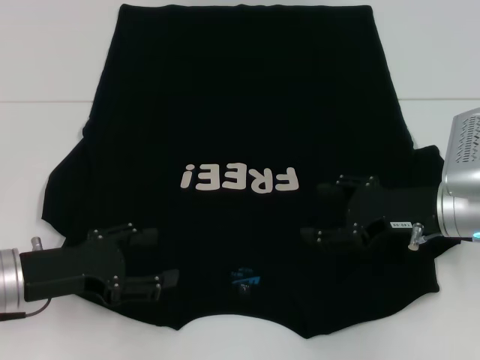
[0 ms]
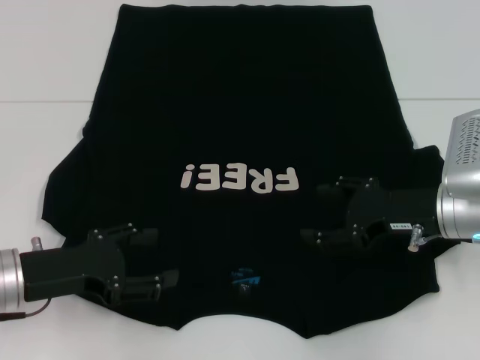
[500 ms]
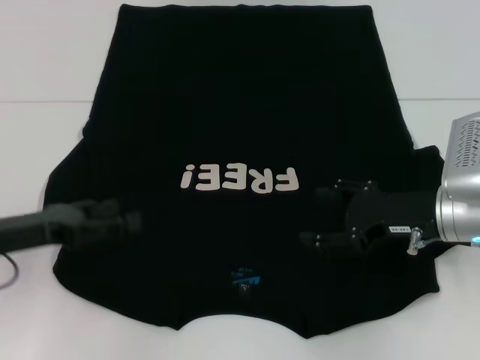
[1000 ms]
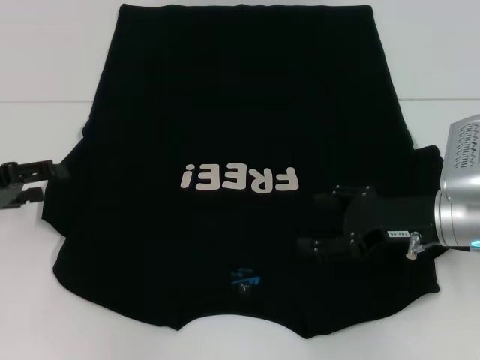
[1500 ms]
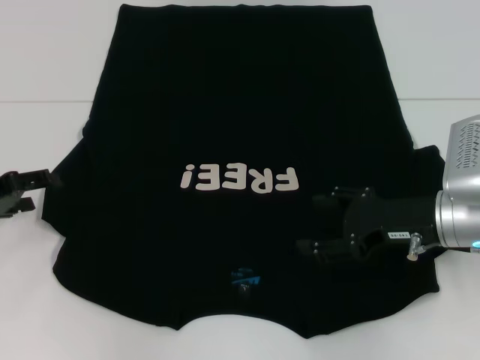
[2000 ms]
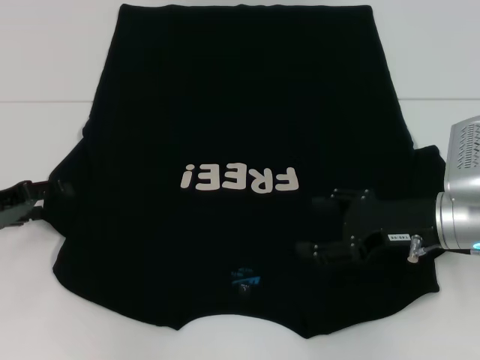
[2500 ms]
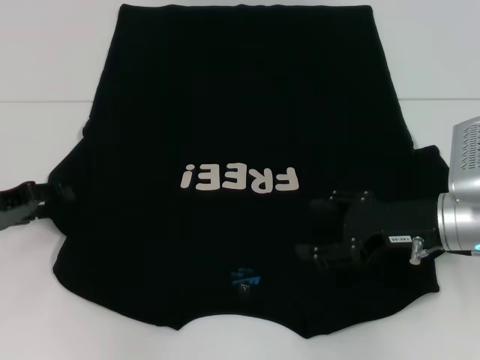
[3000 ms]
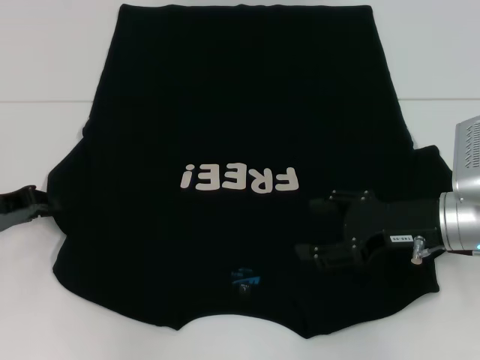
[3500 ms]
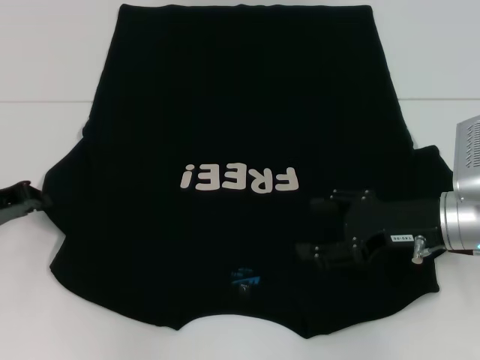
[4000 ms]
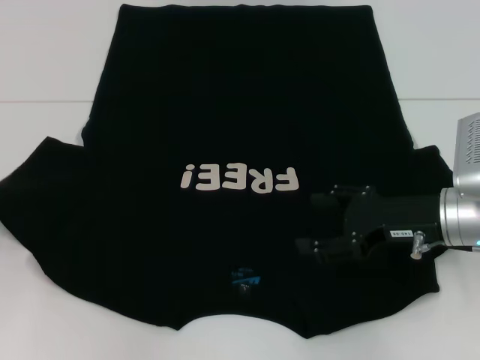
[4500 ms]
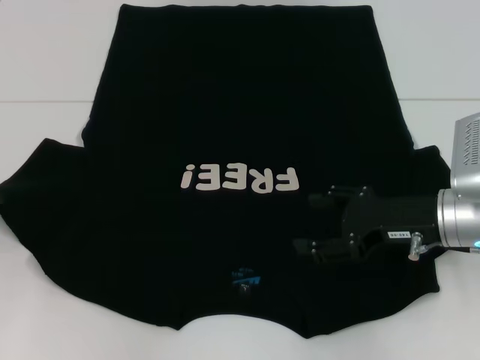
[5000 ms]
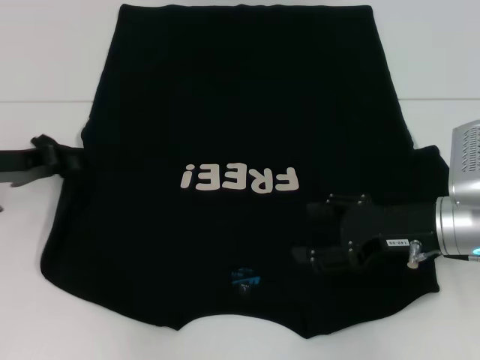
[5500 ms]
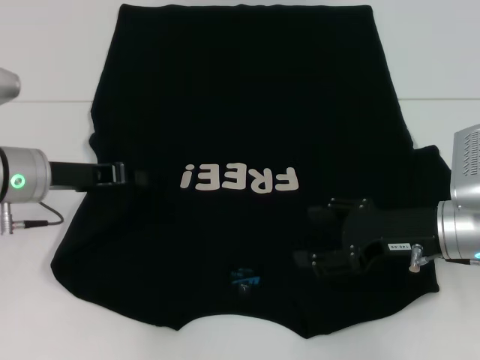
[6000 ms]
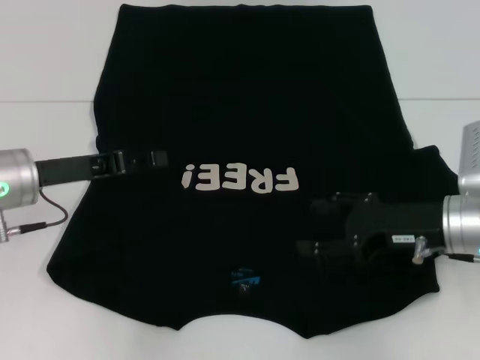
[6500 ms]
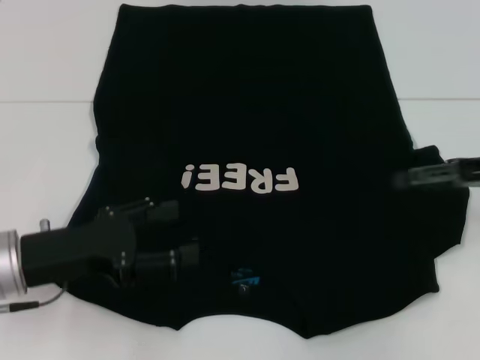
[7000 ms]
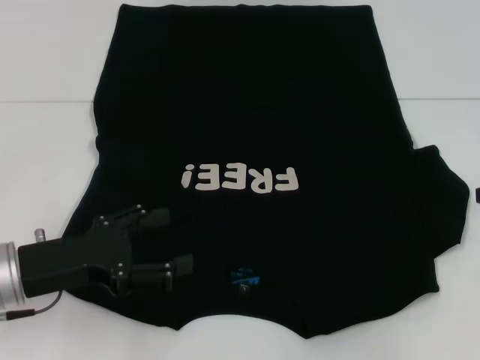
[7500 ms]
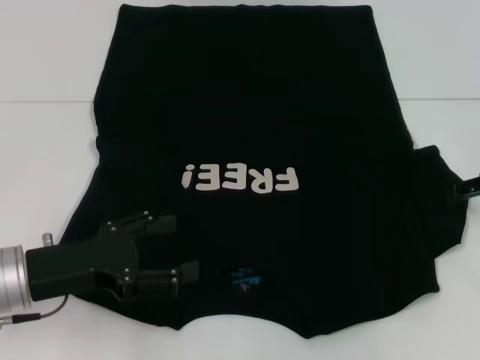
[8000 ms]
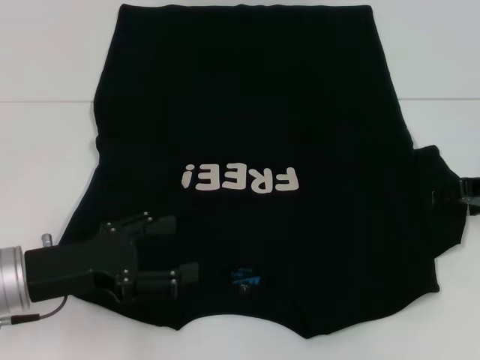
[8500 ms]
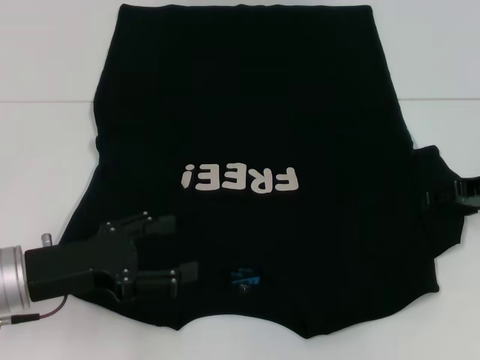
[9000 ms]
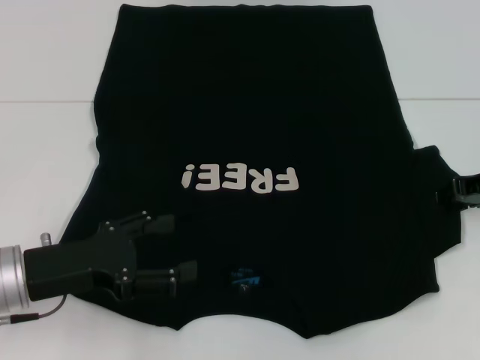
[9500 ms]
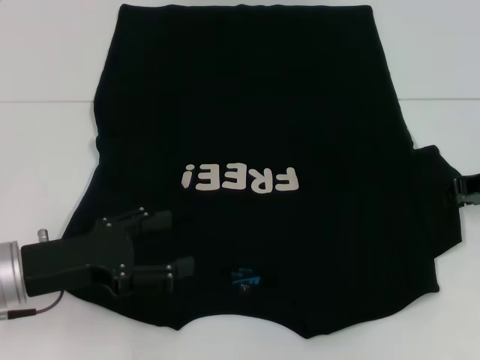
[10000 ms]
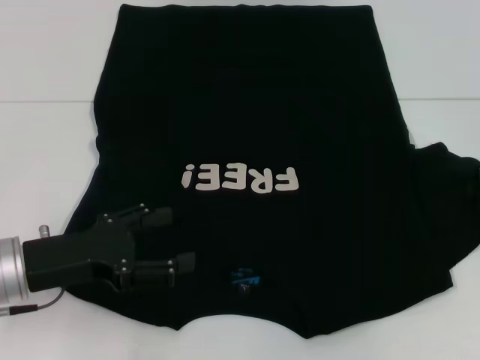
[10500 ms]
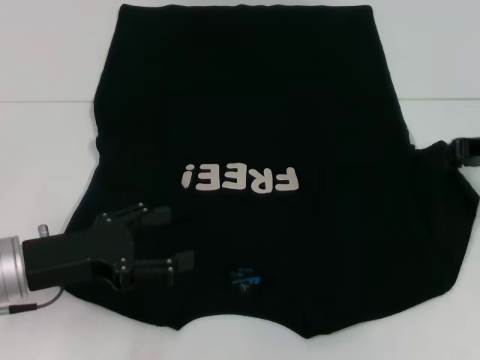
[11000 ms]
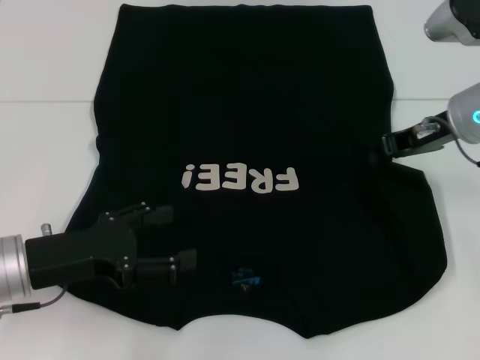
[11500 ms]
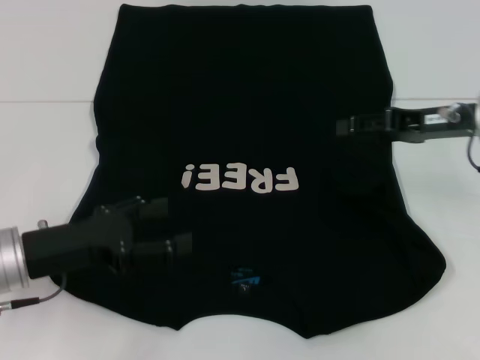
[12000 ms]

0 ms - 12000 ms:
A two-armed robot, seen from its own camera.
Step, 0 ms - 6000 ms: Fold the bottom left sleeve with your left hand.
Step, 6500 ms - 11500 ms: Fold the bottom right sleeve with your right hand.
0 ms - 2000 ms: The left gripper moves to the left and forward, roughly 10 cm.
2000 ms - 4000 ms: The left gripper closes up.
4000 ms - 6000 ms: The left gripper shifts roughly 10 cm to the right.
6000 ms - 8000 ms: The right gripper heads to the right, forward and upward, covering about 15 cm. The left gripper moves backward, about 10 cm, and opens.
10000 ms - 12000 ms: The right gripper moves to the left, approximately 5 cm.

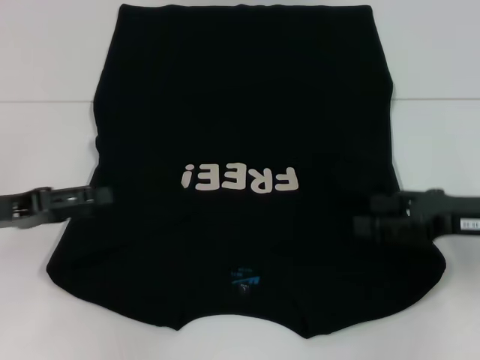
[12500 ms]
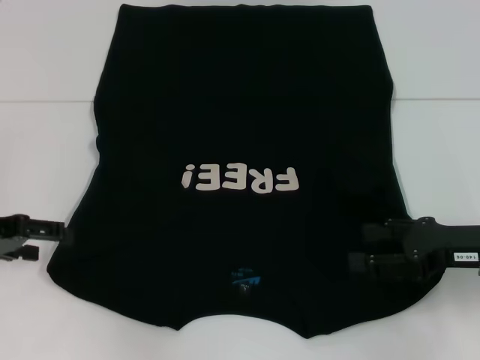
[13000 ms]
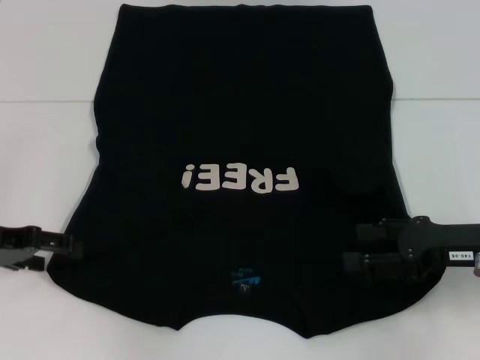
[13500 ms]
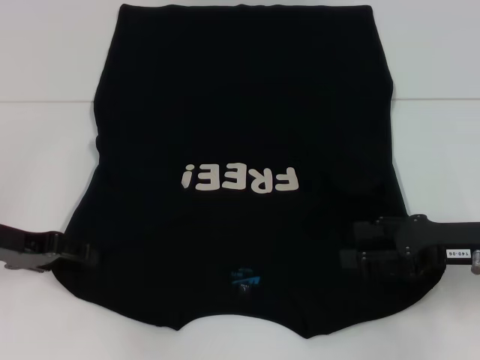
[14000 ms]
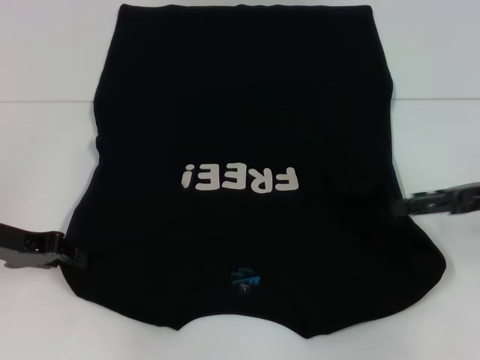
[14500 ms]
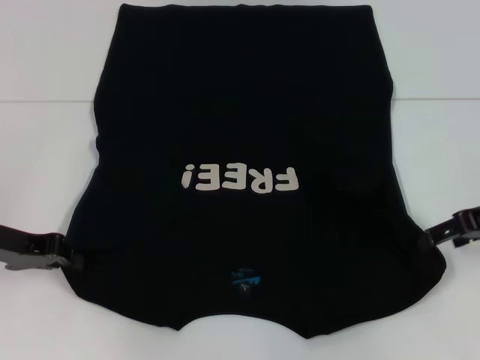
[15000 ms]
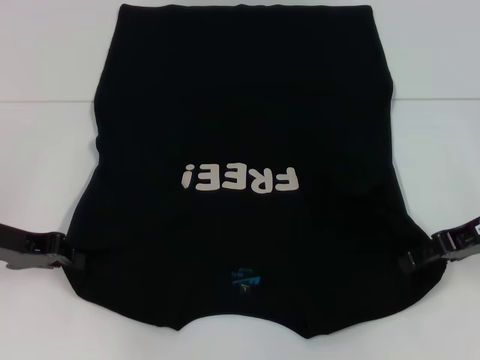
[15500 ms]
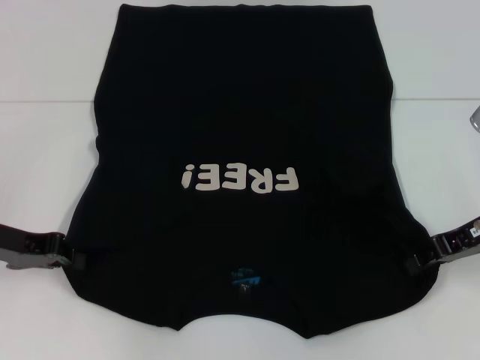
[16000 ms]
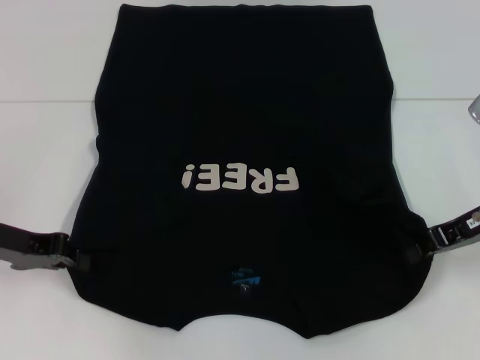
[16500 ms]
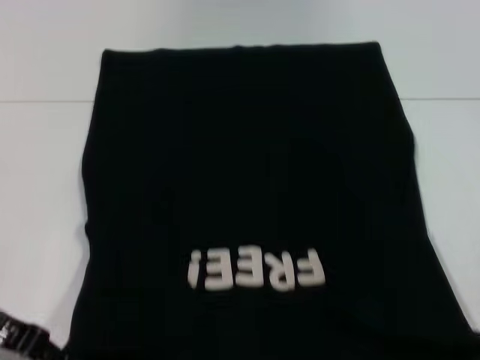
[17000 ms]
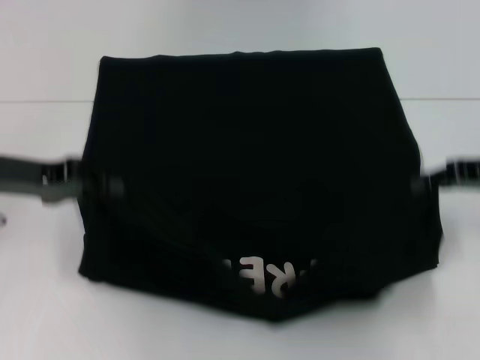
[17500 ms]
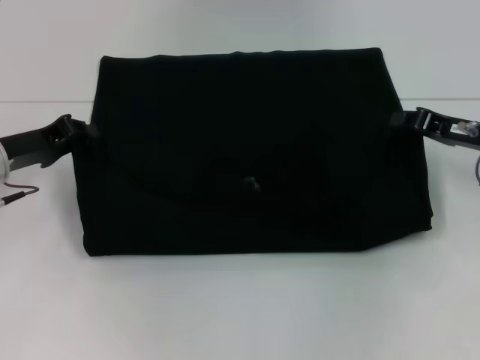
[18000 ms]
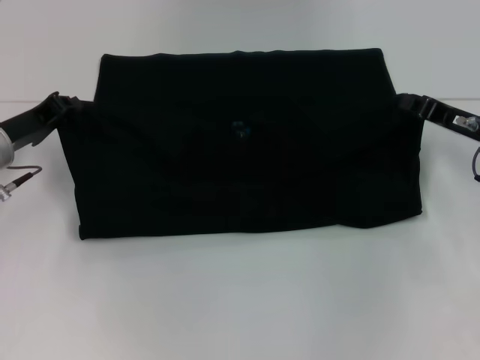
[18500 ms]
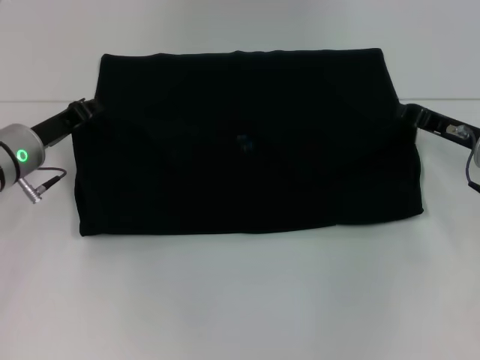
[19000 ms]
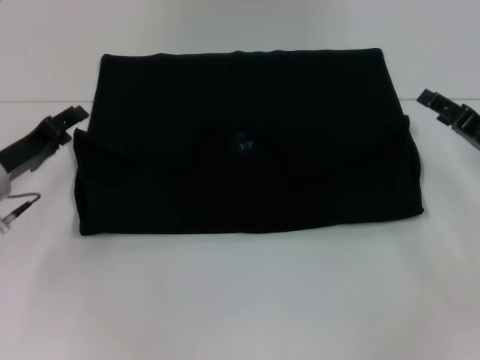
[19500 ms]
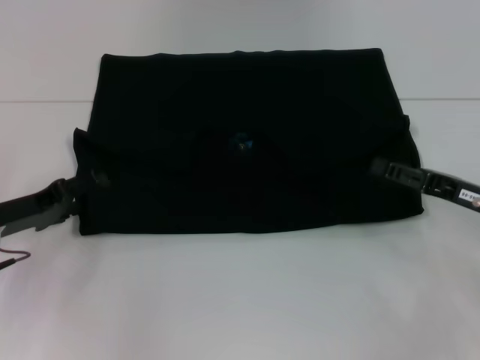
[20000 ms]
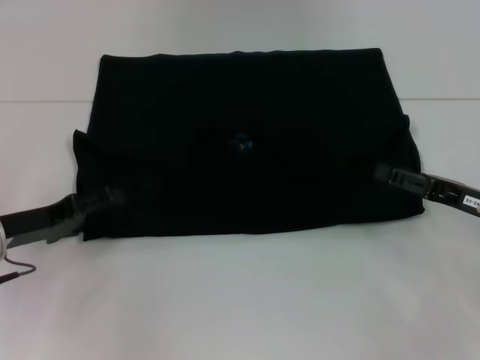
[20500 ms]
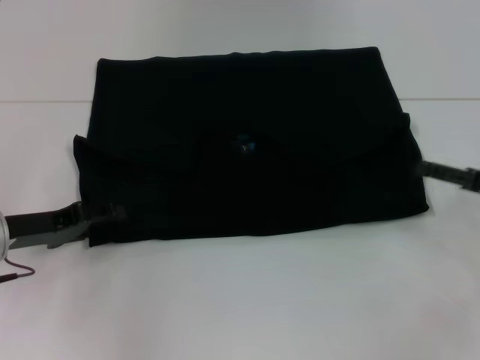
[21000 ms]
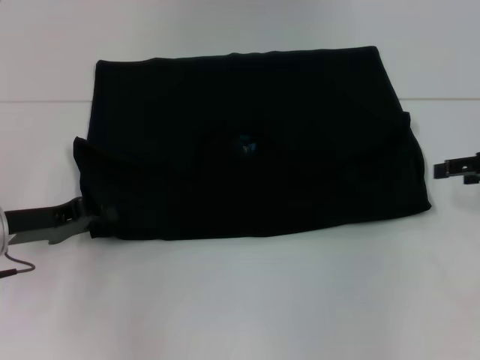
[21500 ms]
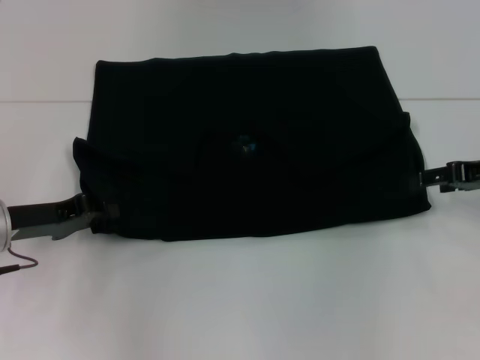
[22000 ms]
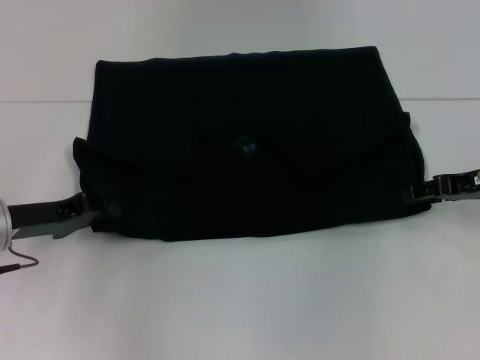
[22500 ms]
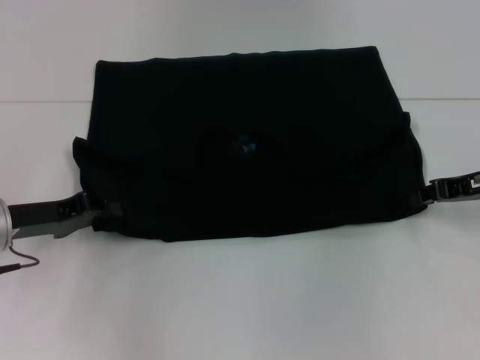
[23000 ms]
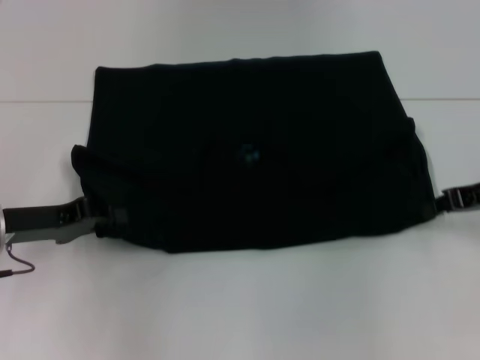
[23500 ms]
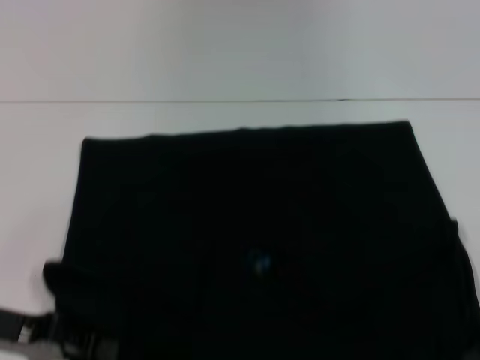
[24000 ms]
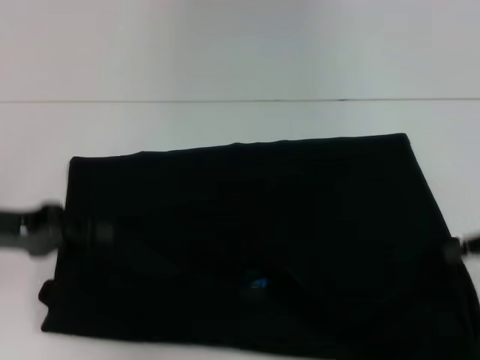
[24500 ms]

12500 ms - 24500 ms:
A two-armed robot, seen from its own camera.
Step, 12500 ms - 15000 ms: Grab the bottom left corner with your left hand.
Step, 15500 ms - 16500 ms: Grab the bottom right corner with your right hand.
Step, 17000 ms - 19000 ms: Fold the clothes with your left hand.
Step, 17000 ms - 19000 ms: Fold the clothes with your right hand.
Step, 19500 ms - 23500 ms: Pull the clothes with your left hand.
Step, 19500 ms - 23500 ms: Pull the clothes with your right hand.
12500 ms - 14500 ms: The left gripper closes up.
14500 ms - 16500 ms: The right gripper closes up.
16500 ms - 18500 ms: The left gripper shifts some 5 cm forward.
18500 ms - 20500 ms: The grippers both shift backward by approximately 5 cm. The left gripper opens its fingers. Meanwhile the right gripper opens.
20500 ms - 22500 ms: The left gripper closes. Meanwhile the right gripper travels forward by roughly 5 cm.
22500 ms - 24500 ms: The left gripper is displaced upward by some 5 cm, and reaches some 10 cm backward, then returns. The right gripper goes roughly 5 cm backward, and closes its fingers.

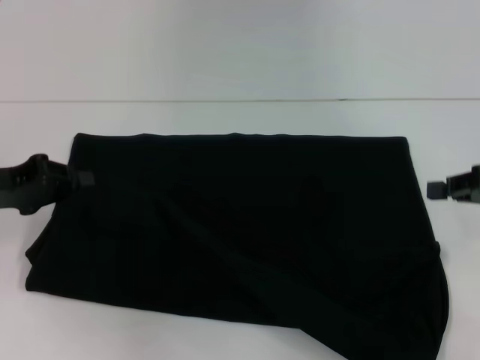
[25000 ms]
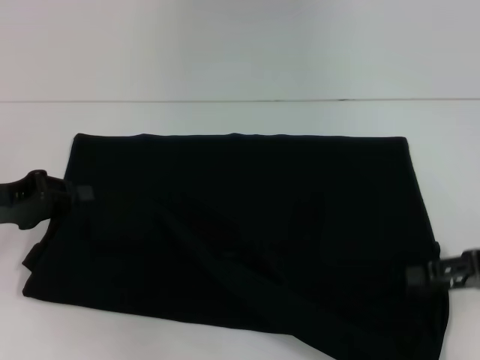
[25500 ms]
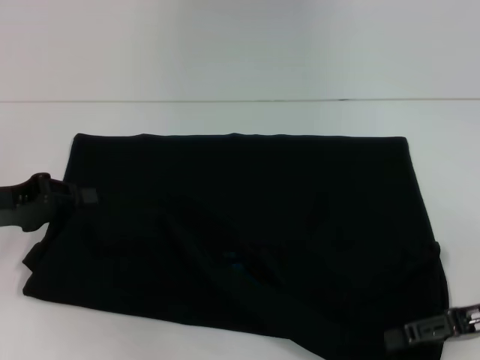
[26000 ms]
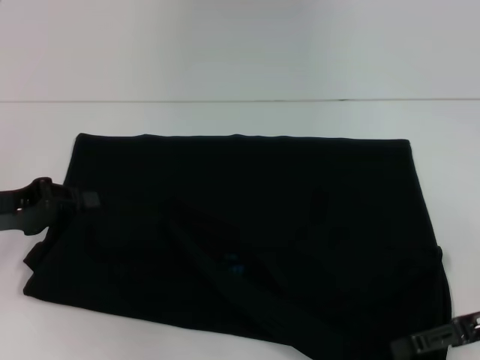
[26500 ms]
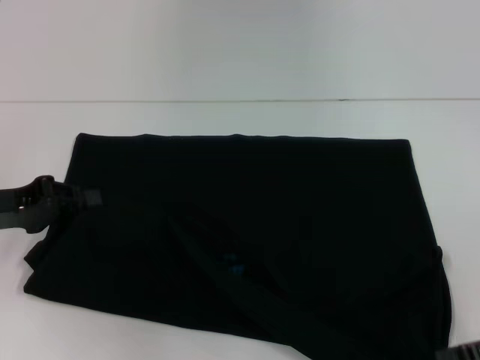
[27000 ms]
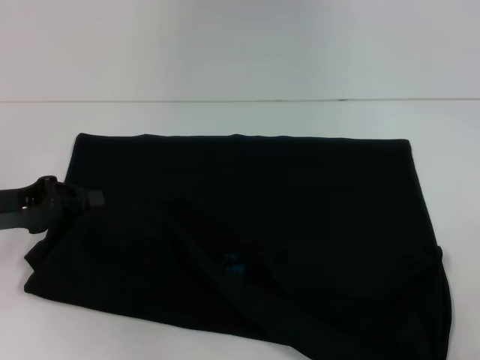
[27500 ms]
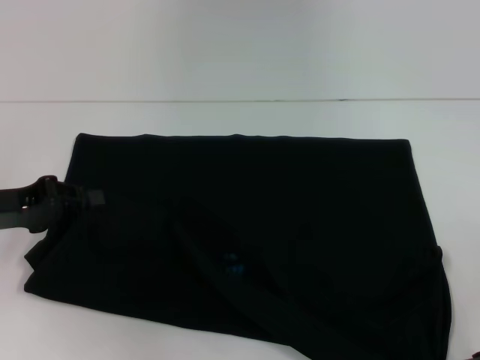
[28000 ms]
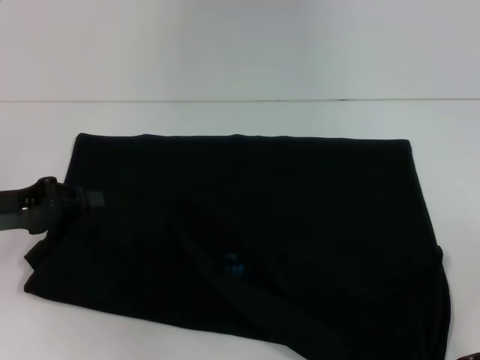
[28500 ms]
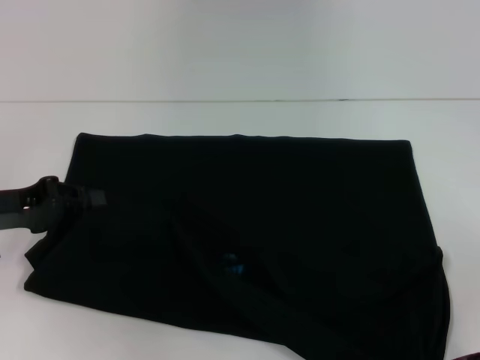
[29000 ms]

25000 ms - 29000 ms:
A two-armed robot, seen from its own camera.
25000 ms - 27000 ms: The right gripper shifts some 10 cm backward, and opens up.
27000 ms - 29000 ms: The grippers stay close to where they were, moving slightly.
